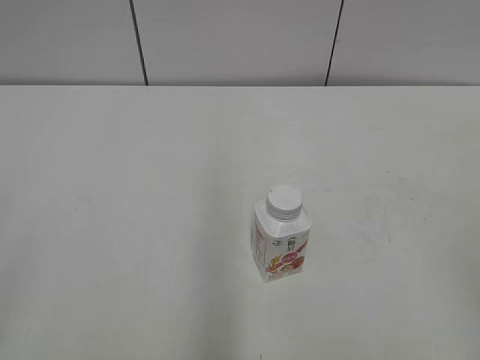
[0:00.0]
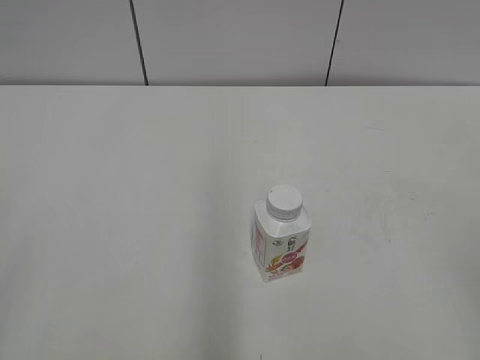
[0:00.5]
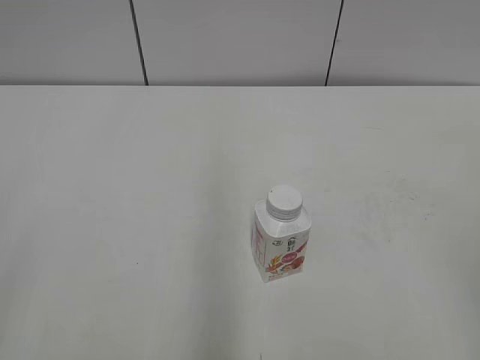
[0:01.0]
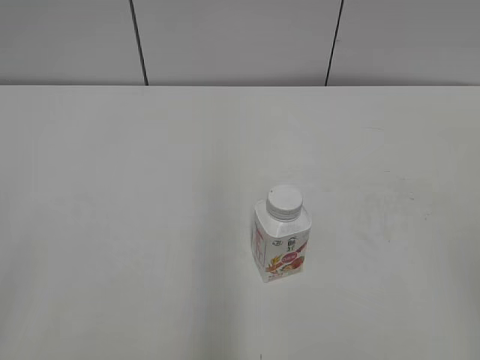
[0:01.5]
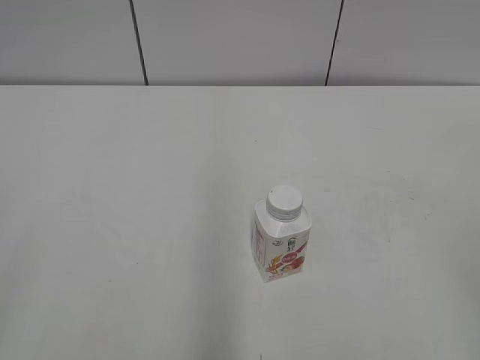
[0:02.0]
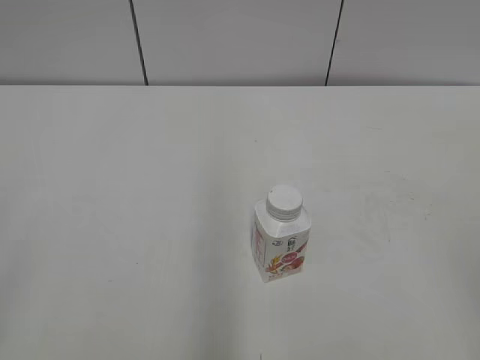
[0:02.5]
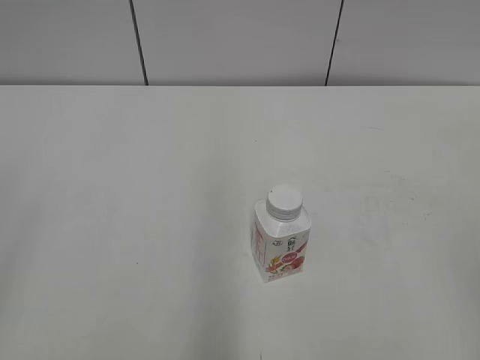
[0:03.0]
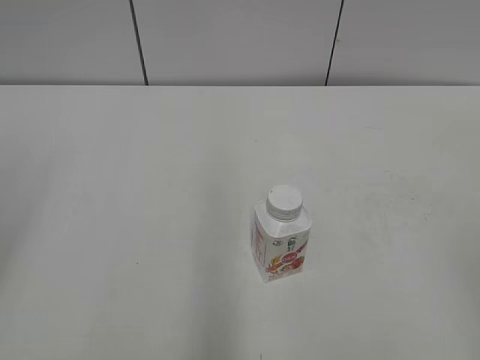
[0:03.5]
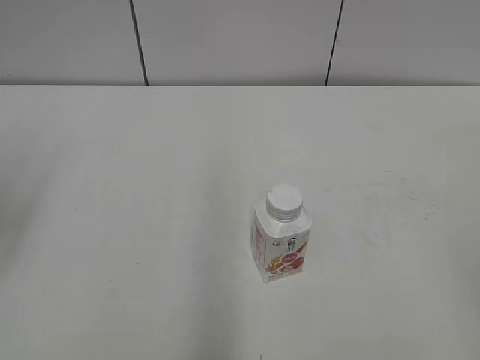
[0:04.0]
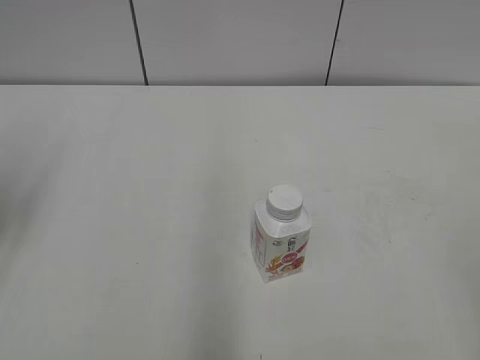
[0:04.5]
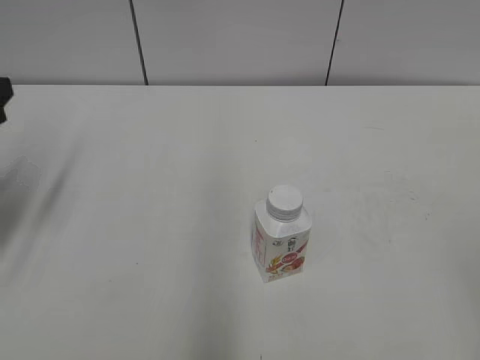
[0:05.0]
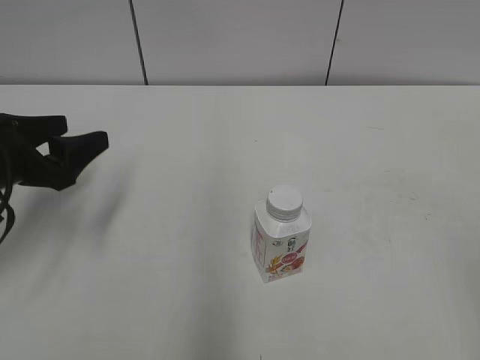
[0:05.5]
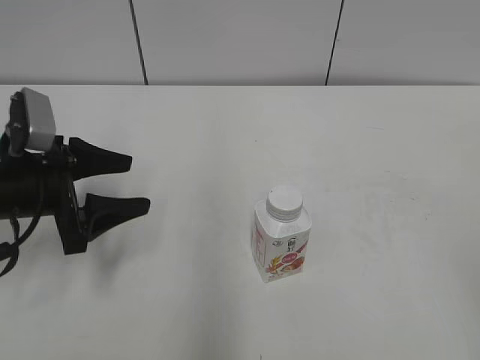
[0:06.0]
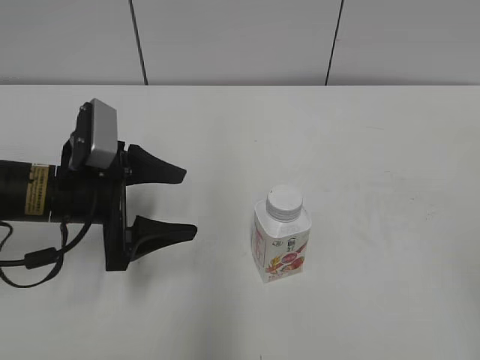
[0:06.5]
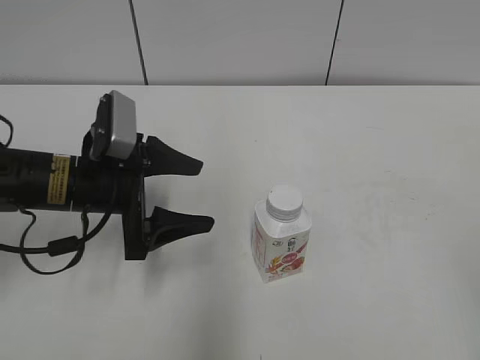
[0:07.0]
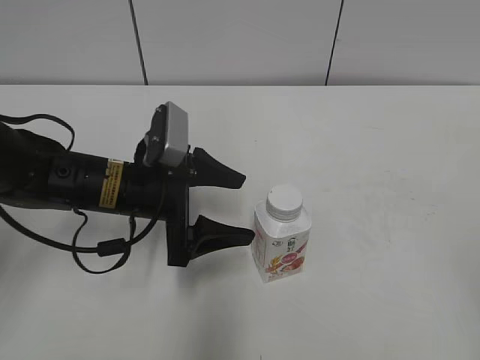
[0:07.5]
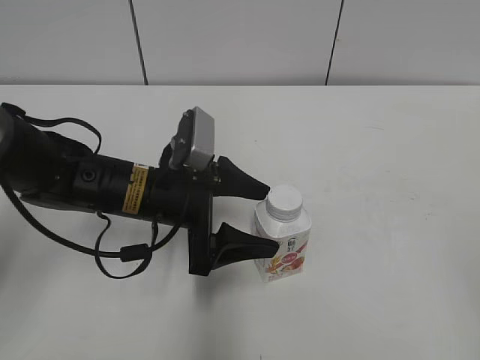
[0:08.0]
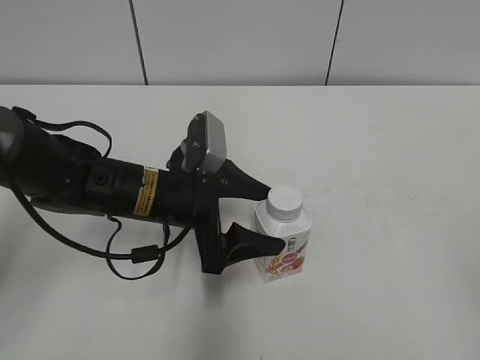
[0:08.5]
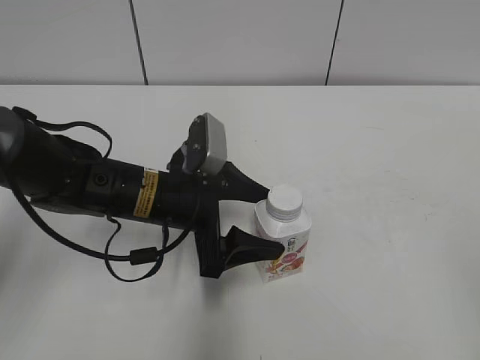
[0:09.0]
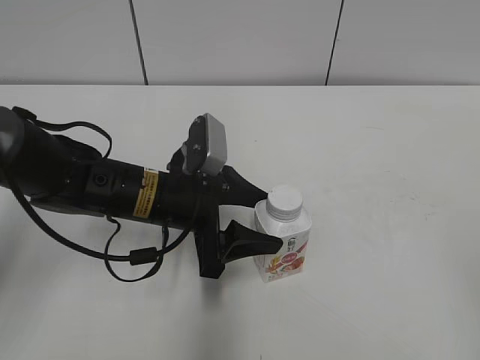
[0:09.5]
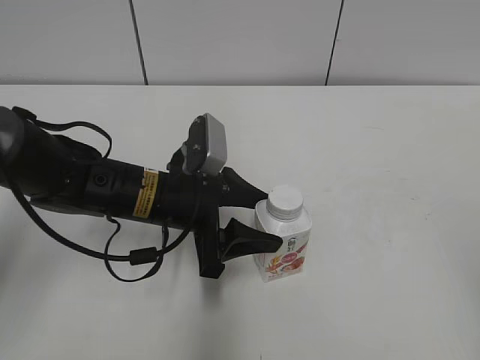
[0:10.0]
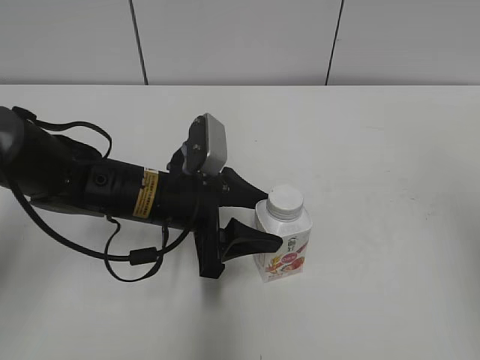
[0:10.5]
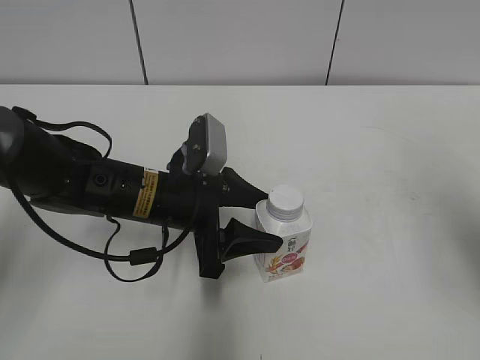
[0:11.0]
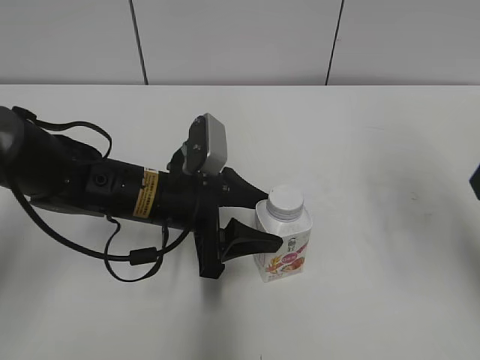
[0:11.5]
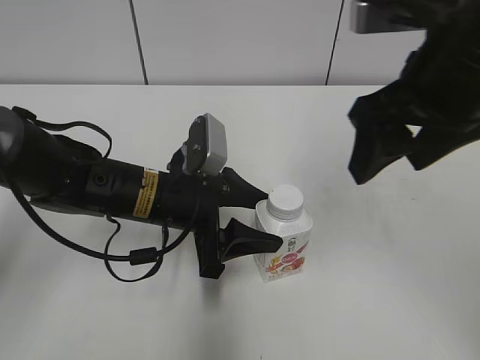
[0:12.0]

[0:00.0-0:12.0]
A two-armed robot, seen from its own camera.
Step, 0:00.0 to 0:10.5: Grab the Yili Changqing with the left hand.
0:04.0 to 0:06.0: The left gripper shifts roughly 20 cm downward, forward and to the right.
0:06.0 to 0:08.0: The left gripper shifts about 15 cm to the right, and opens.
0:08.0 to 0:10.0: The left gripper closes.
0:10.0 to 0:12.0: The right gripper goes some 30 cm forward and to the left.

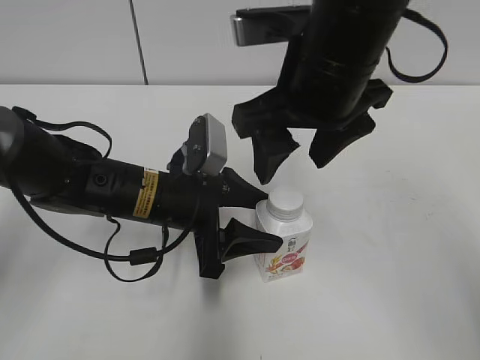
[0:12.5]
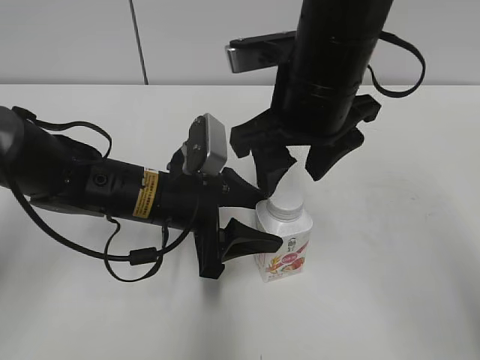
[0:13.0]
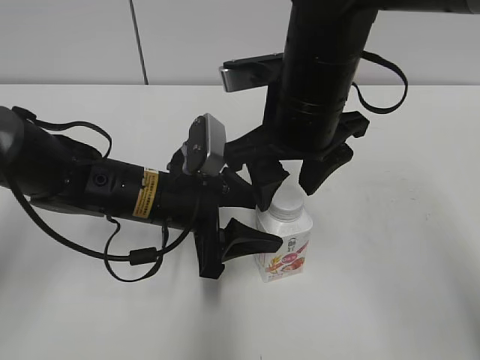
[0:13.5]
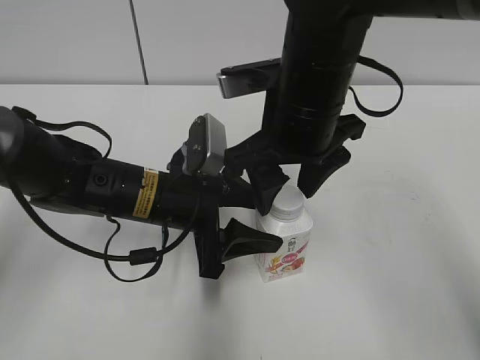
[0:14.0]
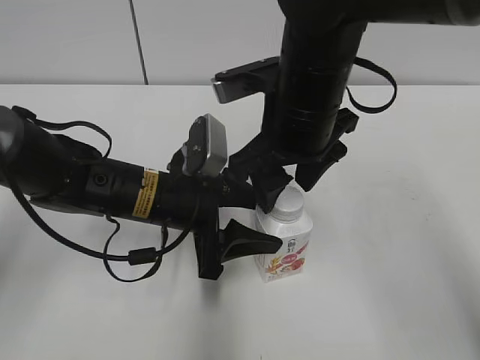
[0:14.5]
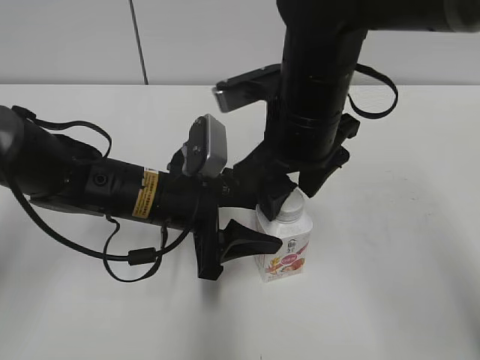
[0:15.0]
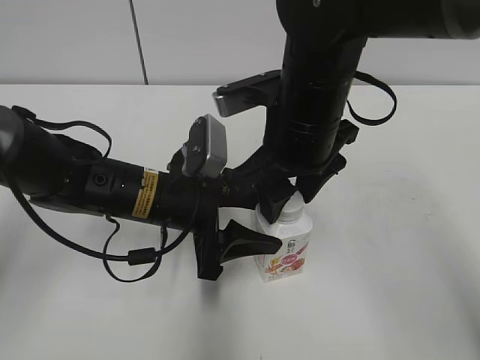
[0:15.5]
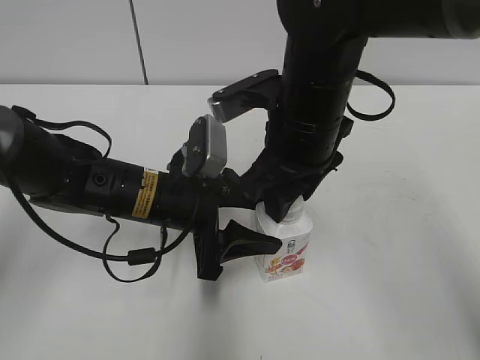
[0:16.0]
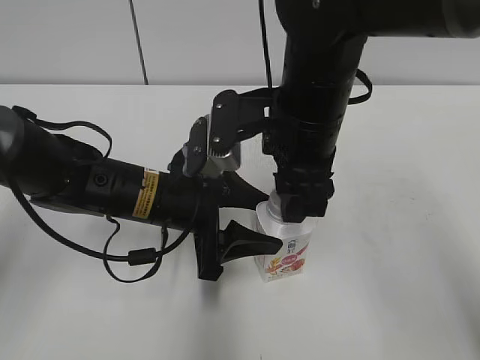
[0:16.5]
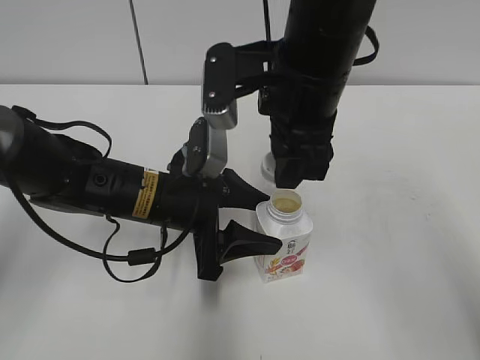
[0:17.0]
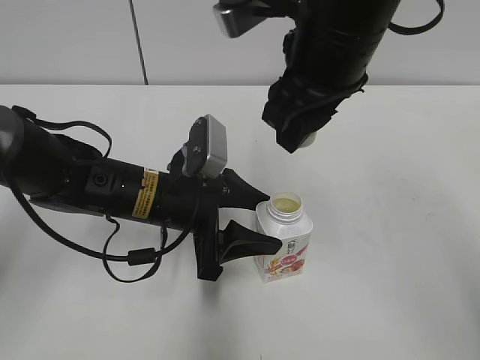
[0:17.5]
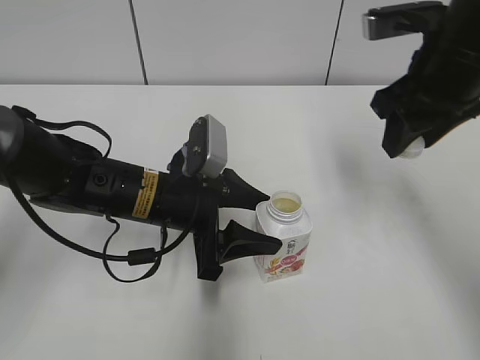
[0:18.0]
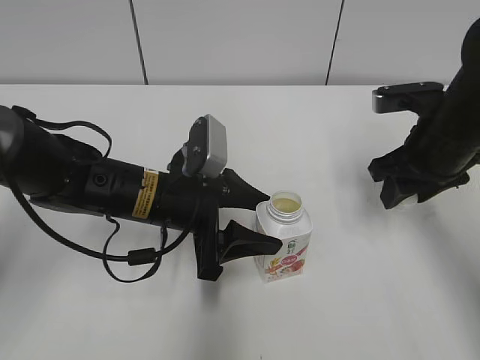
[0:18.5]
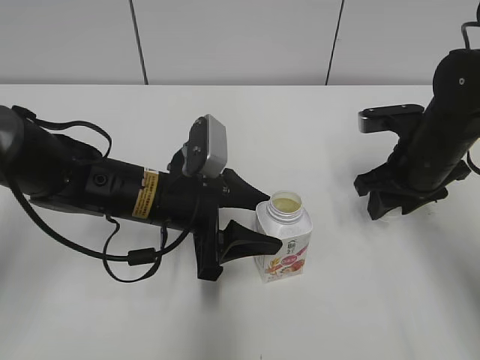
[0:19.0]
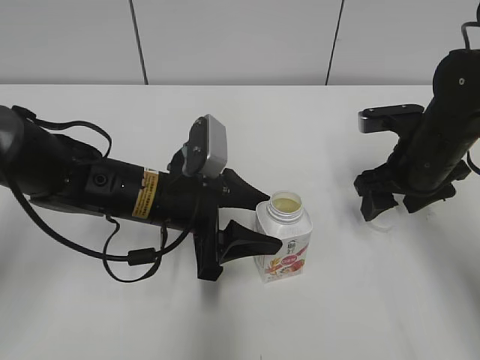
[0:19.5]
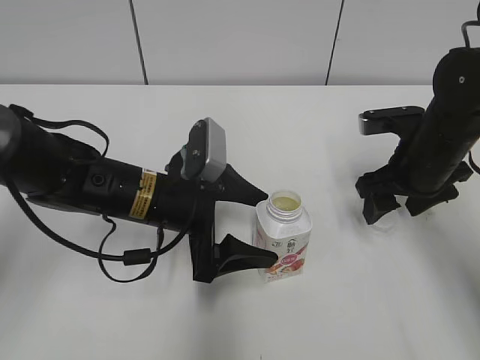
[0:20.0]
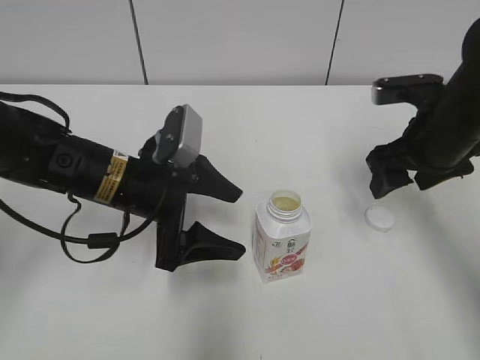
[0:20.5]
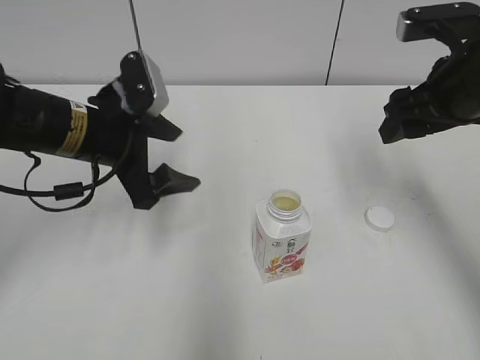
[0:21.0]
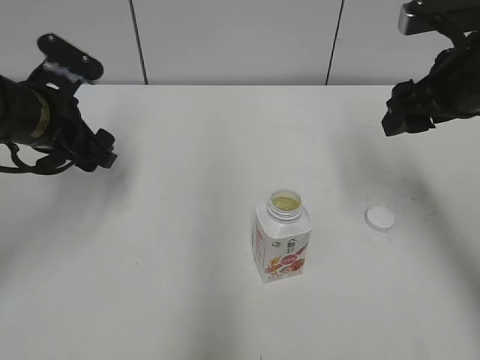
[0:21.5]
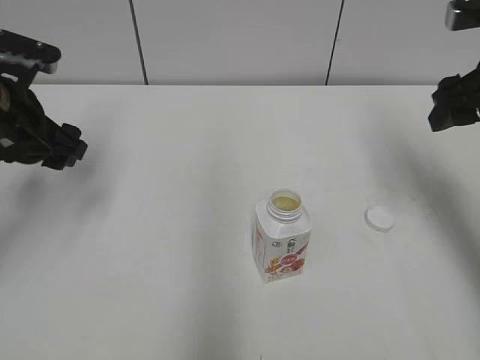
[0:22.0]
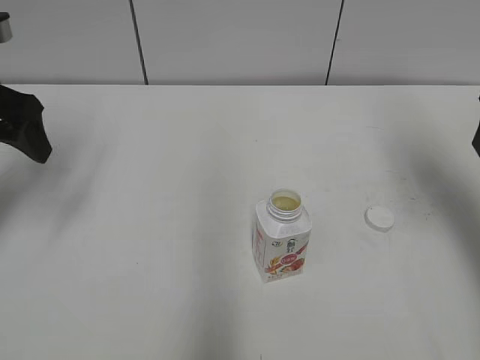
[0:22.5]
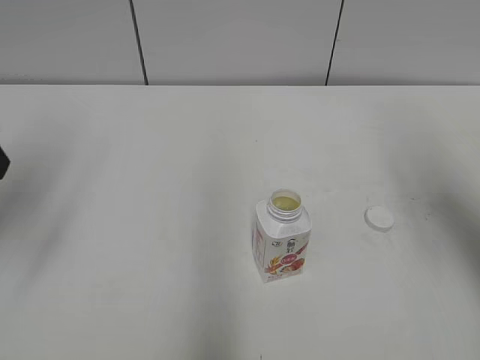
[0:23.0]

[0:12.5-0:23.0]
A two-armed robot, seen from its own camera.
Step, 0:17.0 to 0:19.0: Place the bottle cap on the right.
0:12.5 to 0:14.5: The right gripper shifts approximately 5 cm downward.
0:14.5 to 0:16.5: The right gripper closes up.
0:16.5 to 0:19.0: The right gripper moves to the right and downward, roughly 20 cm.
0:19.0 to 0:21.0: The right gripper moves upward, about 10 cm, and opens its fingers; the left gripper is displaced to the left and upward by some 10 cm, and opens up.
0:21.0 to 0:23.0: The right gripper is displaced upward, backward and to the right by about 10 cm. The left gripper shifts roughly 20 cm to the left, upward and backward.
